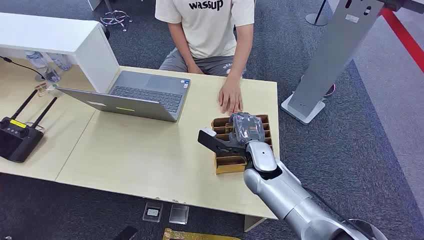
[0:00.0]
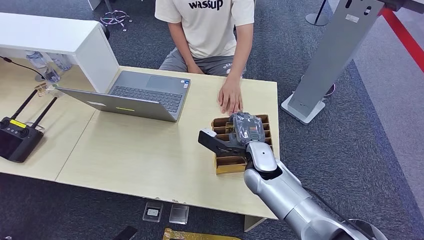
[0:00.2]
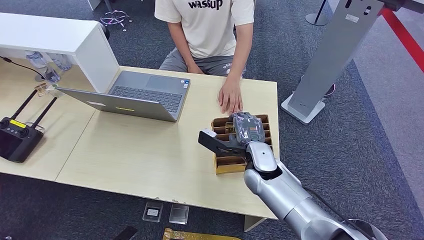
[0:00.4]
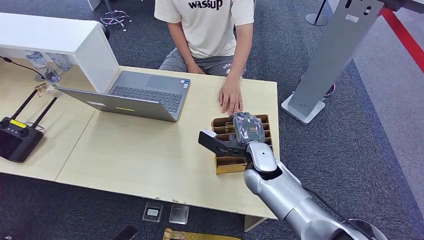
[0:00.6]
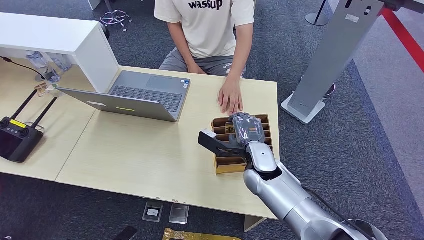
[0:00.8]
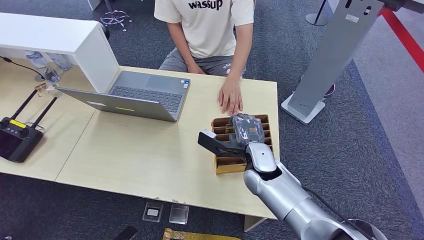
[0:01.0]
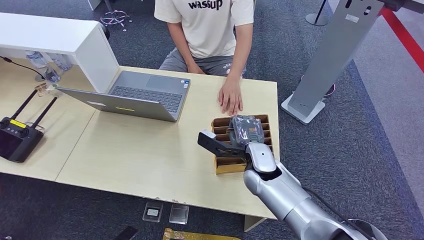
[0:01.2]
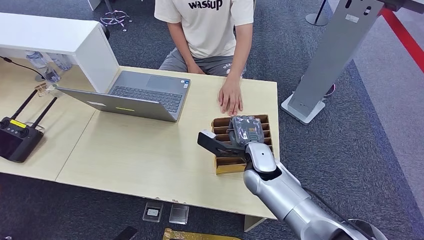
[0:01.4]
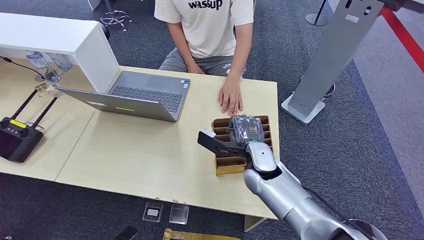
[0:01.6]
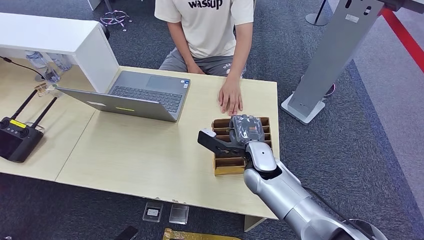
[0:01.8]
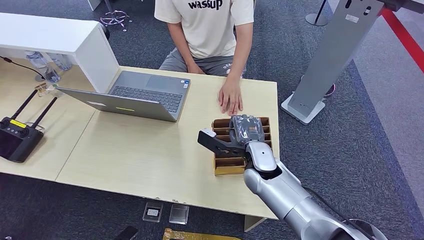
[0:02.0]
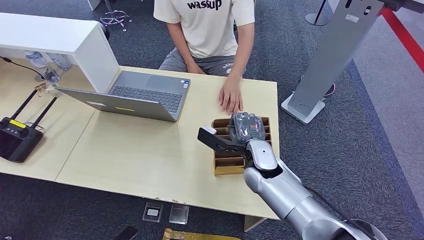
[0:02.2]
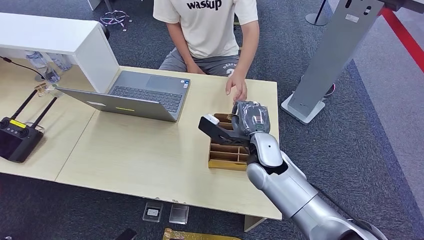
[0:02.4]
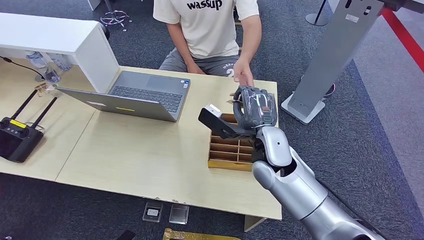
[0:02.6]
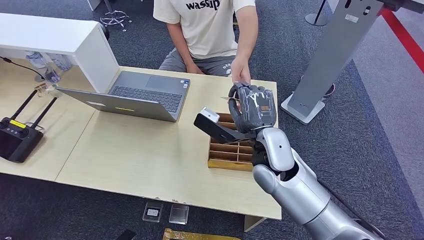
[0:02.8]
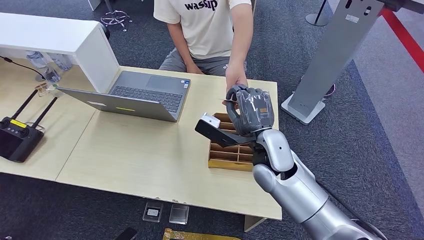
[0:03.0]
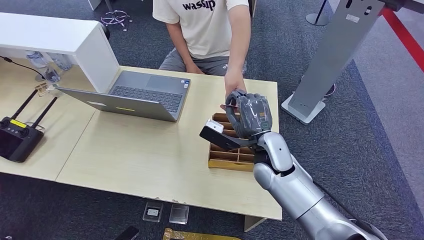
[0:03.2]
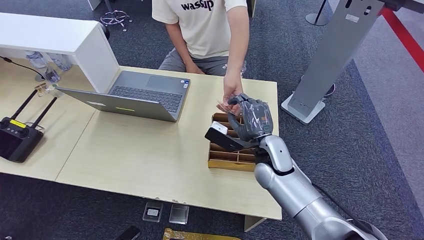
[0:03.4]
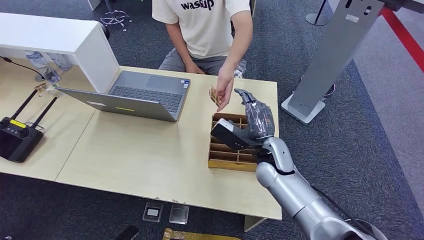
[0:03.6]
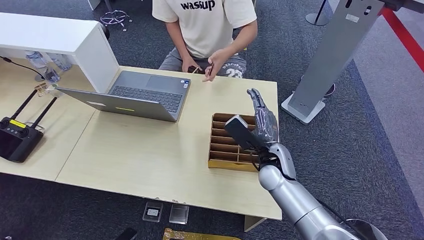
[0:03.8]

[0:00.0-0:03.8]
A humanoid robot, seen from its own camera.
Step, 0:00.0 to 0:02.4: Pick up the room card from the card holder.
Step, 0:02.6 to 0:03.8: Hand the room card to the target.
0:01.2 to 0:02.6: The right hand moves upward, approximately 10 cm.
0:02.6 to 0:03.8: The right hand is displaced downward by about 10 cm.
